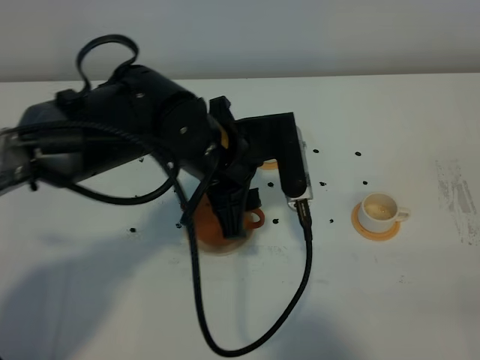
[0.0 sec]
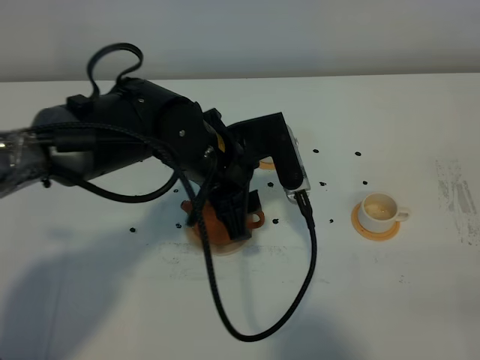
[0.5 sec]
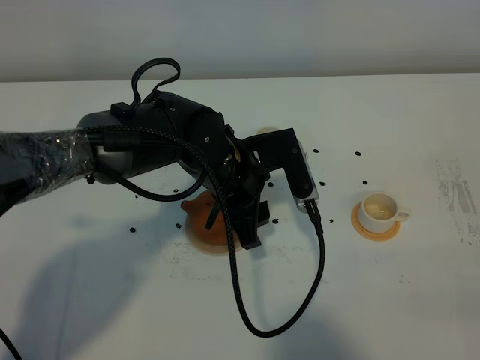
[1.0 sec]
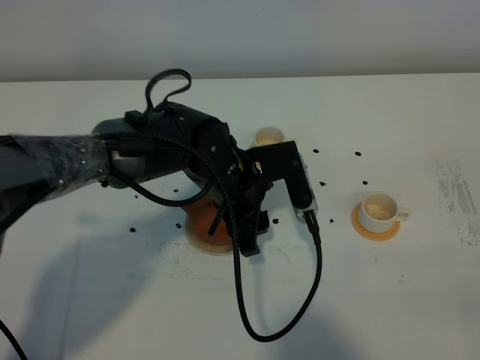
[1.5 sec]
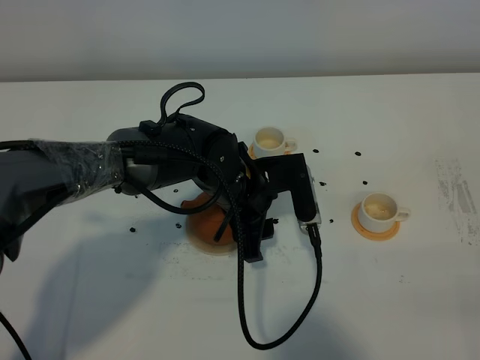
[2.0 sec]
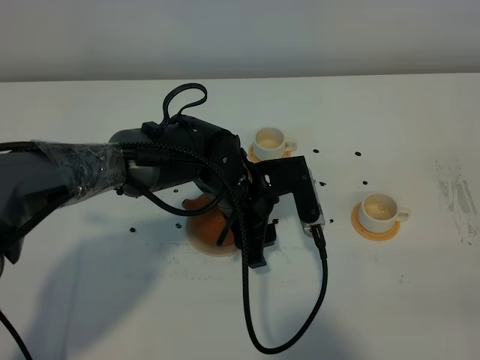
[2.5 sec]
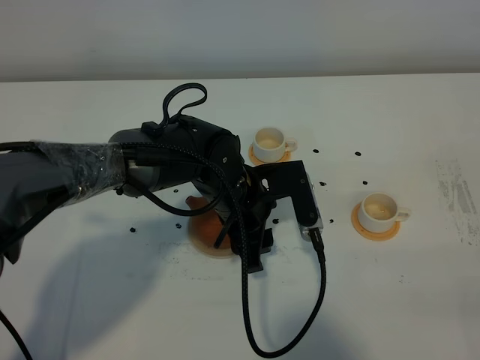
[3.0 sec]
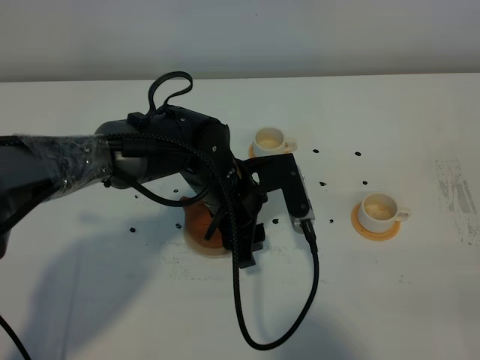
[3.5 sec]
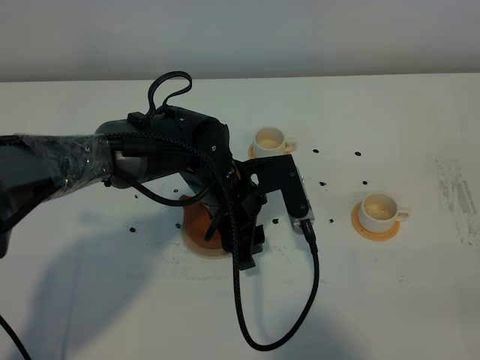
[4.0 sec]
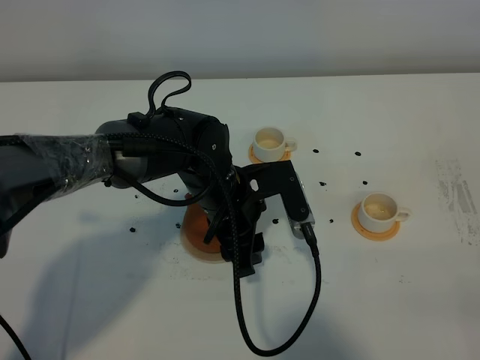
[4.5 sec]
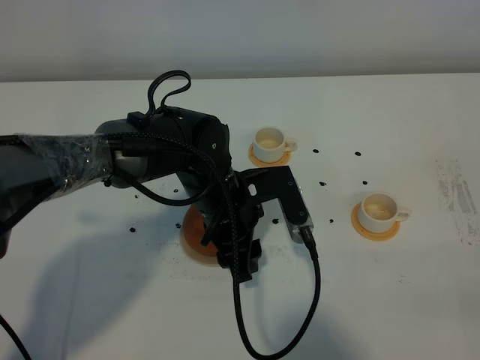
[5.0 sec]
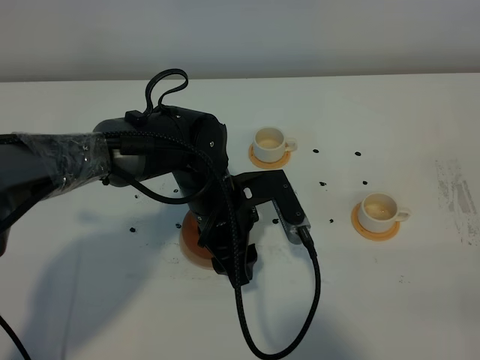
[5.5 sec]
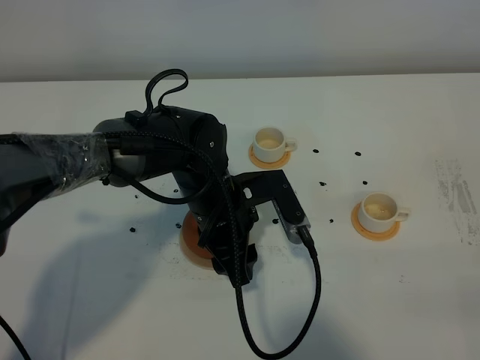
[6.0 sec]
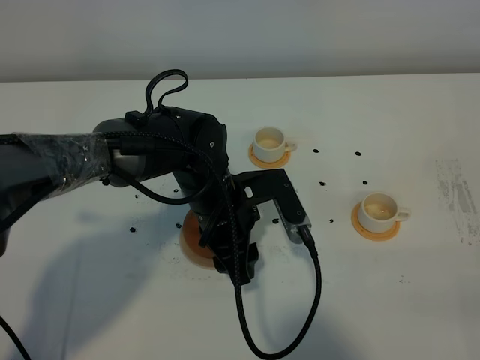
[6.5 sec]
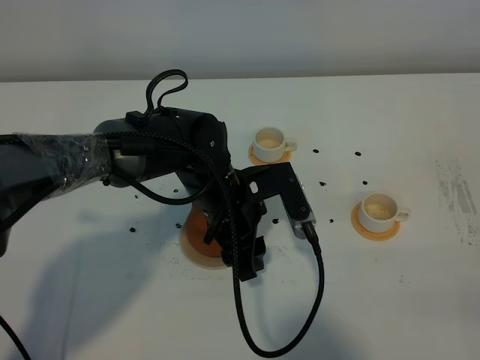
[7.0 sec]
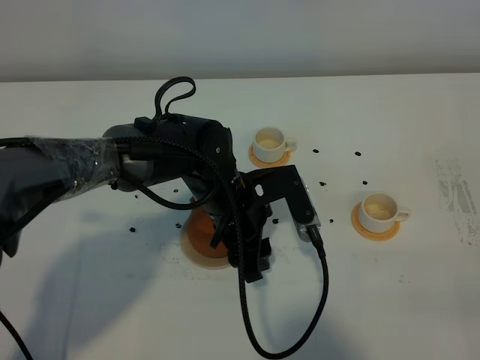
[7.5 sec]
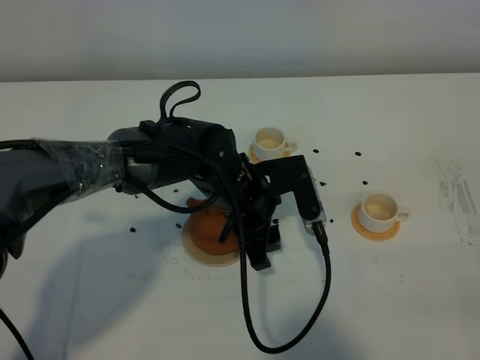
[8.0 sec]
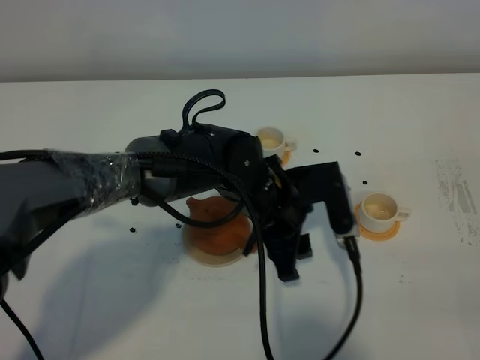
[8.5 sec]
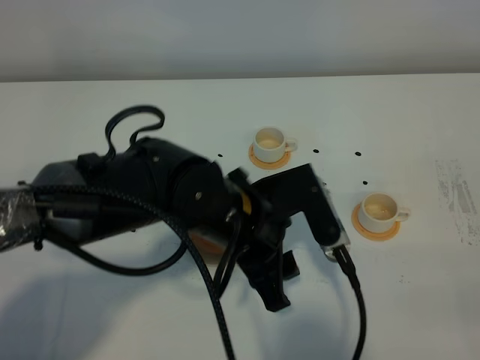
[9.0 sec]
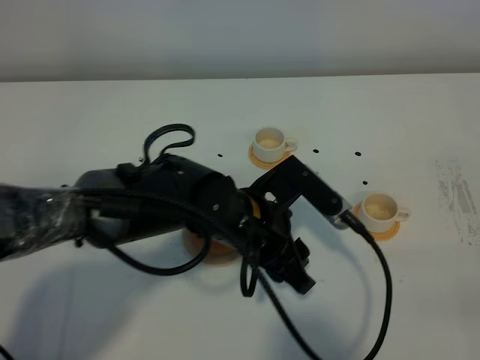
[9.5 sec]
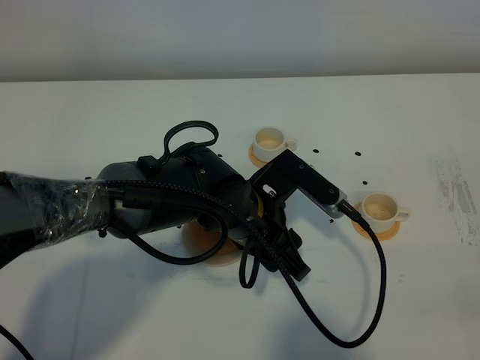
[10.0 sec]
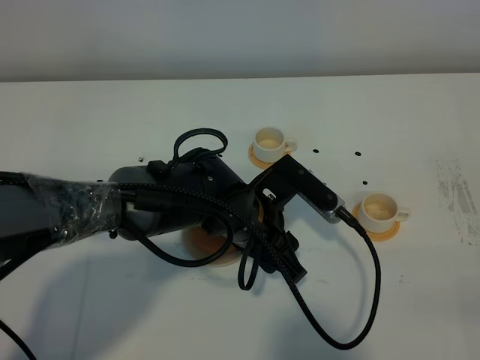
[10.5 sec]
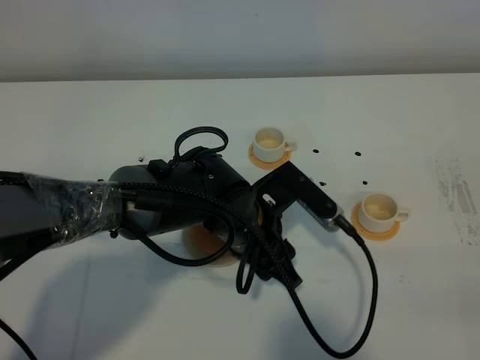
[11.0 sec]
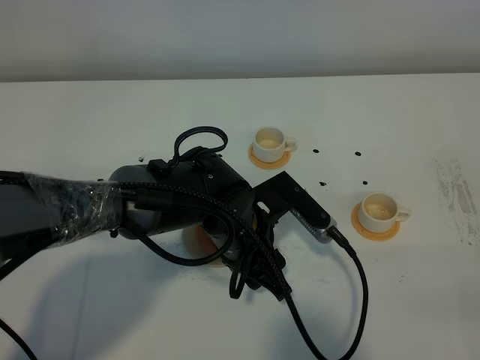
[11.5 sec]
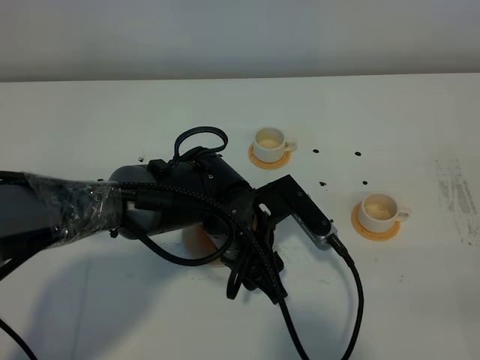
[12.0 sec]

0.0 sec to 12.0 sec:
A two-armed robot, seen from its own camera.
Task of the whole recording: grasp the brown teapot and pour the tea into the two white teacups one by one, put the brown teapot back in its original place.
0.0 sec to 2.0 sec: The left gripper heads downward, covering about 10 cm.
2.0 sec to 4.0 sec: There are only small adjustments of the grippers.
4.0 sec to 8.0 sec: The grippers stay close to where they were, moving slightly.
8.0 sec to 10.0 sec: The left gripper moves backward, approximately 5 cm.
10.0 sec to 12.0 sec: The grippers move only a little.

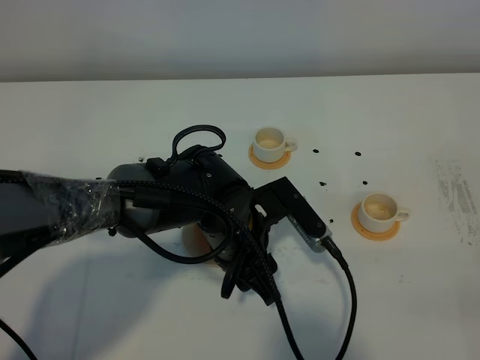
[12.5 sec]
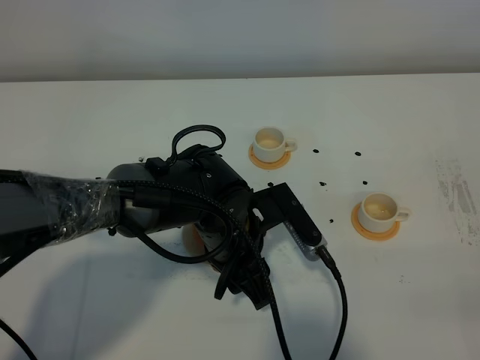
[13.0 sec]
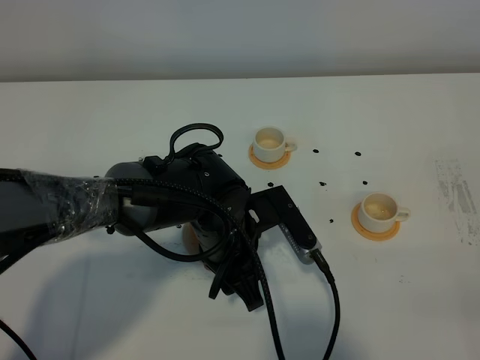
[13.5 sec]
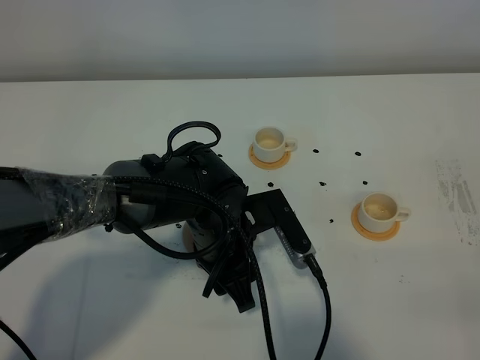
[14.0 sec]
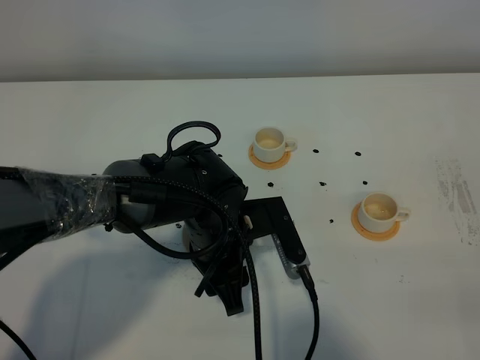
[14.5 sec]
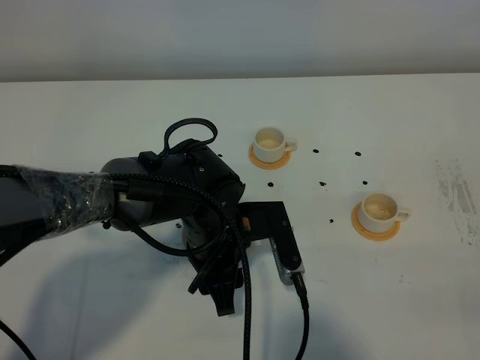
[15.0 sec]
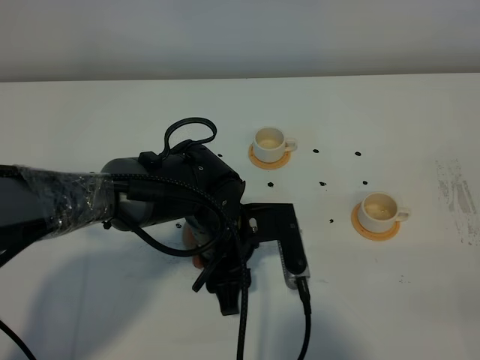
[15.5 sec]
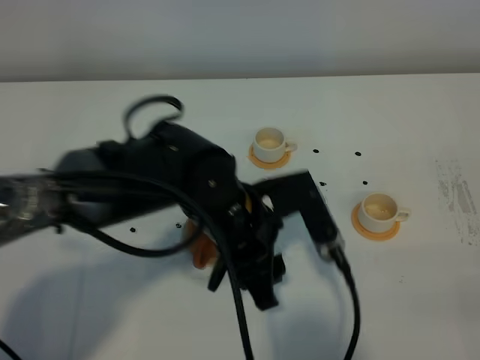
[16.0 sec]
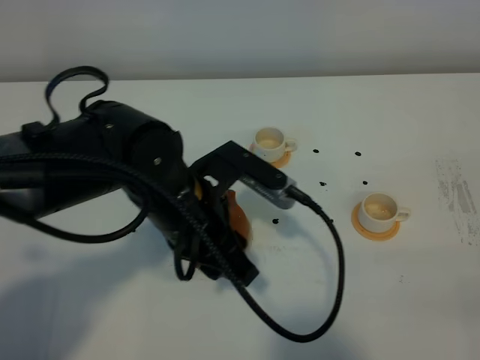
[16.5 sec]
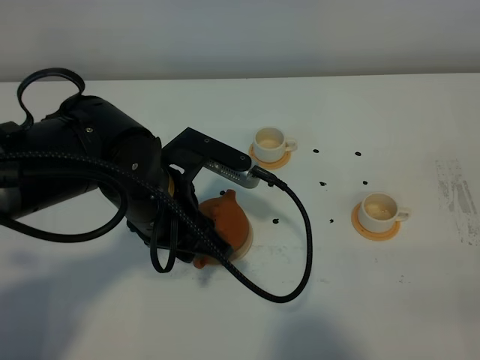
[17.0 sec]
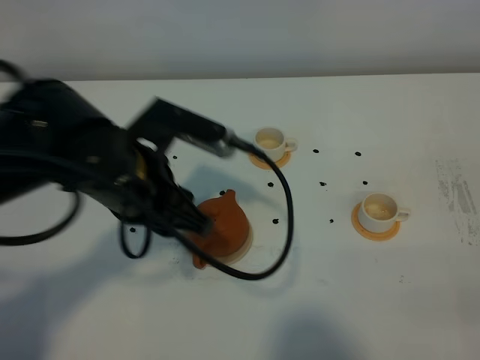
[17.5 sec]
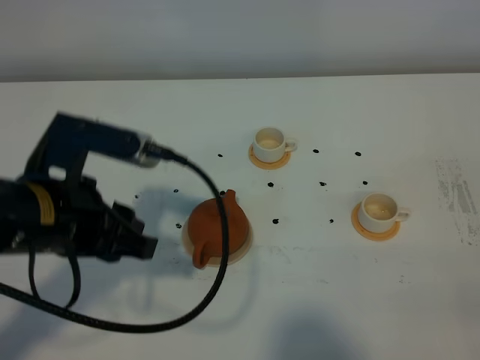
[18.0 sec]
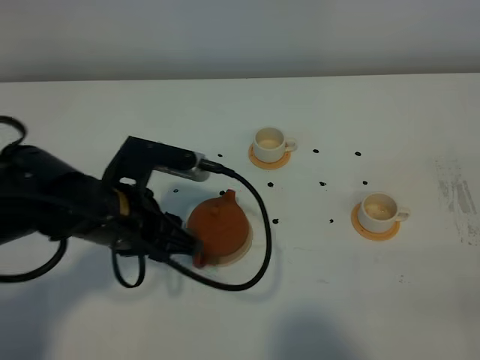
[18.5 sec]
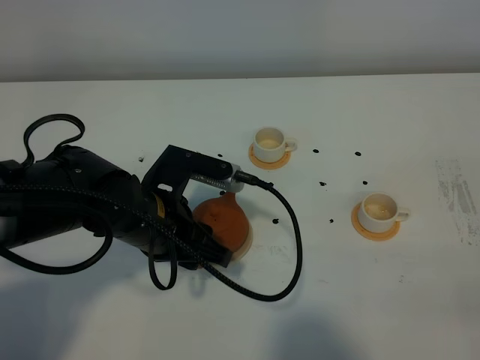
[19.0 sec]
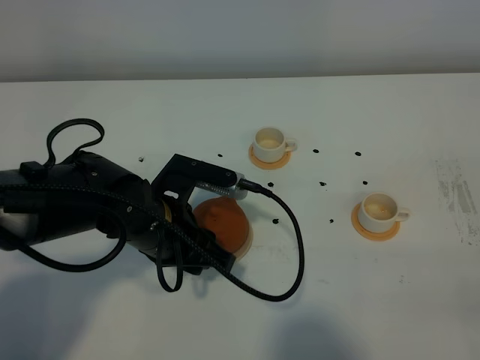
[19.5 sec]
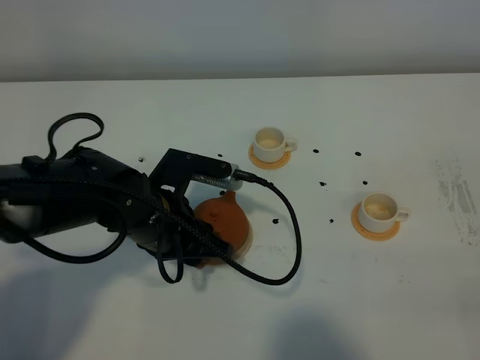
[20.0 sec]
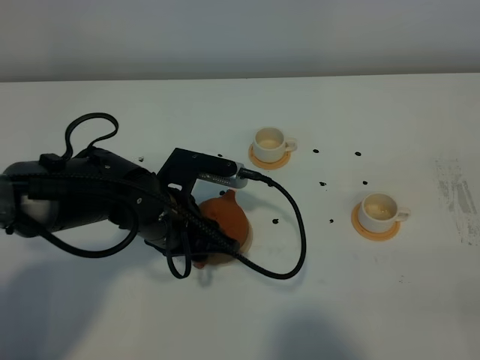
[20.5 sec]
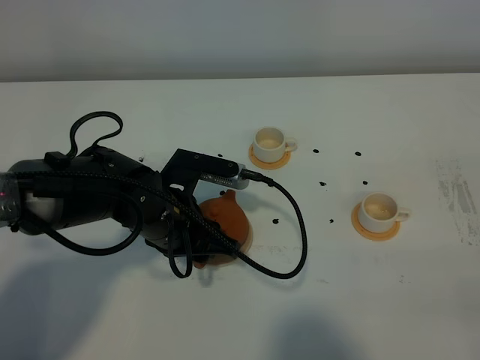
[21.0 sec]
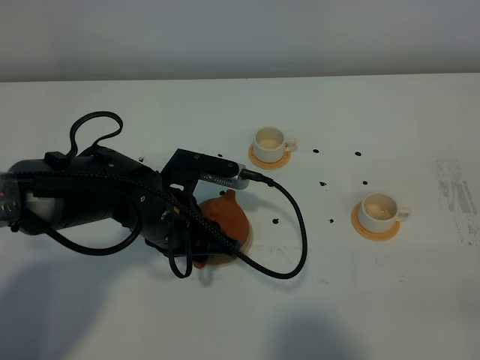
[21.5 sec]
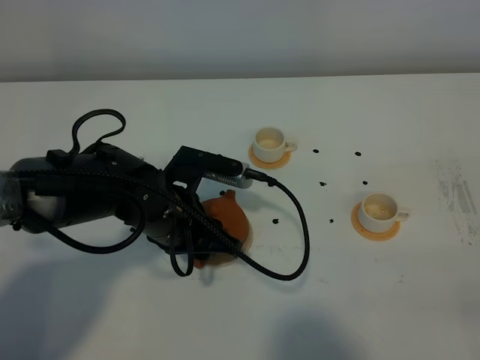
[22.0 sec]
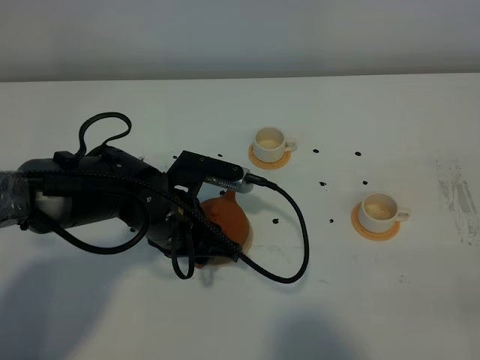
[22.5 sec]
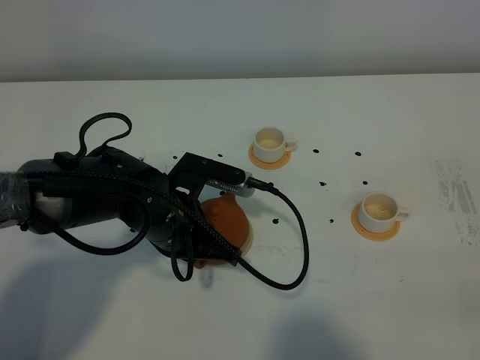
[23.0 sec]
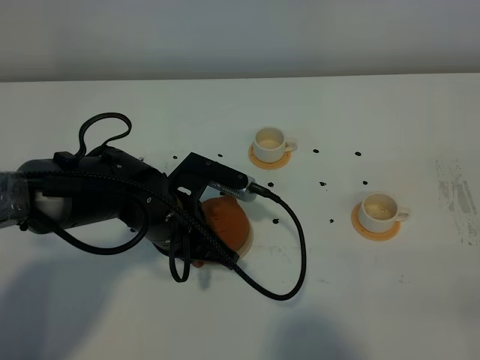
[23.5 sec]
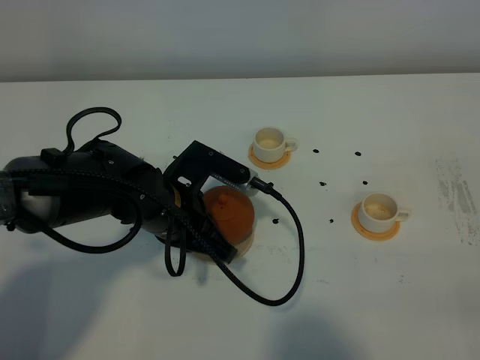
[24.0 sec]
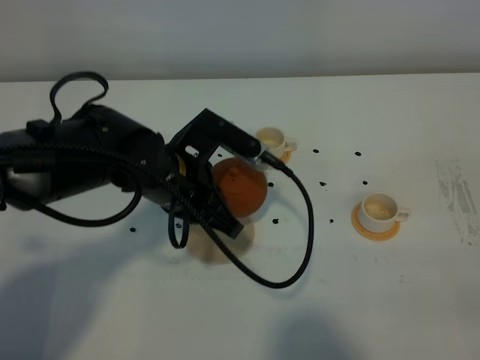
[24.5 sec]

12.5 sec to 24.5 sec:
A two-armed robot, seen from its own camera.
Task of the whole recording: grasp the brown teapot and pour the tea into the two white teacups one by one, put the brown teapot back in its original place.
Step, 12.5 sec to 23.5 sec: Pick up the teapot with the left gripper.
12.5 sec to 14.5 sec: The grippers make only small movements.
14.5 sec to 16.5 sec: The left gripper shifts about 10 cm upward.
16.5 sec to 18.5 sec: The left gripper heads to the left, covering some 5 cm.
18.5 sec to 20.5 sec: The left gripper ends up about 5 cm from where it was.
20.5 sec to 22.5 sec: Both grippers stay about where they are.
22.5 sec to 24.5 sec: The left gripper is displaced upward by about 5 cm, and closes its fingers.

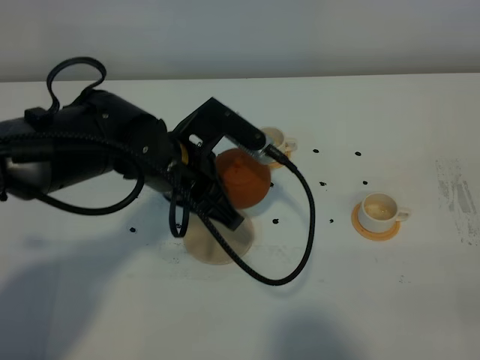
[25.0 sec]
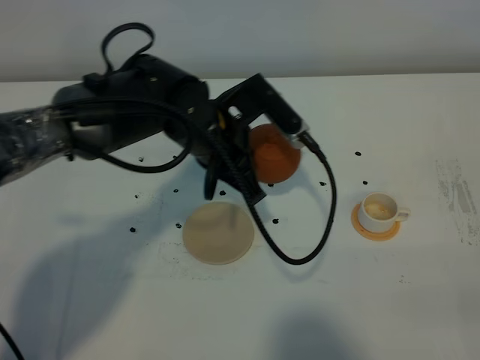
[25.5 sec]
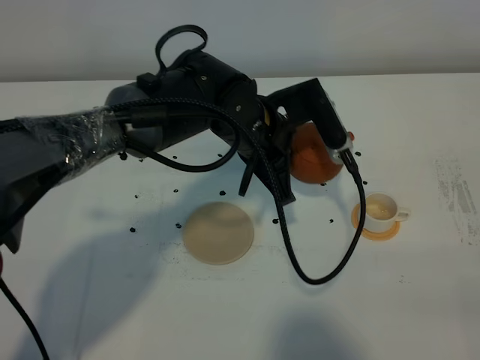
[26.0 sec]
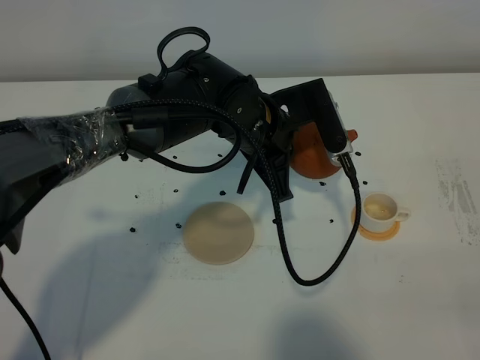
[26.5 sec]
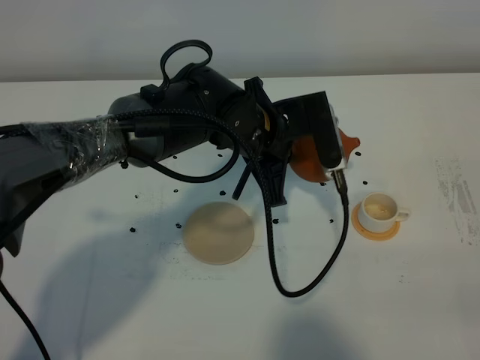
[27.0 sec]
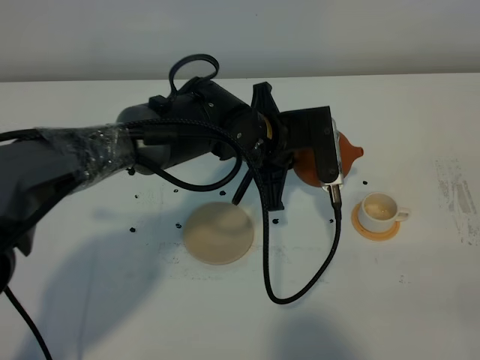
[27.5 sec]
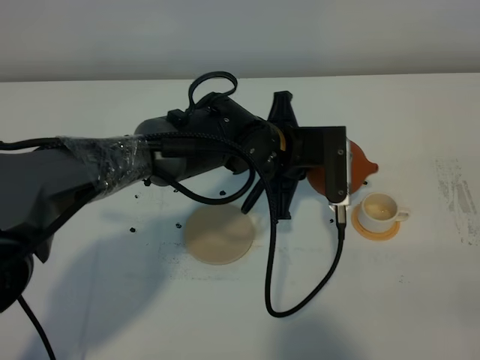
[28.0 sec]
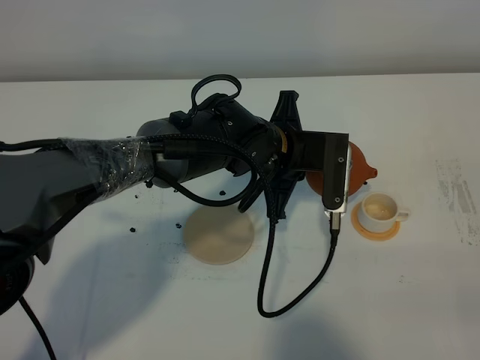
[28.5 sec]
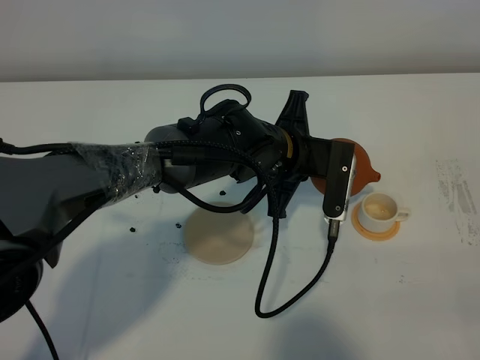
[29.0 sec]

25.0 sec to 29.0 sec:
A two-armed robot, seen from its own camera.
Task of the whole recording: grasp the brown teapot and pour the tea into the two white teacups one by one, put the brown teapot back in its original place.
25.0 sec to 27.0 sec: The left gripper moves to the right, about 10 cm.
